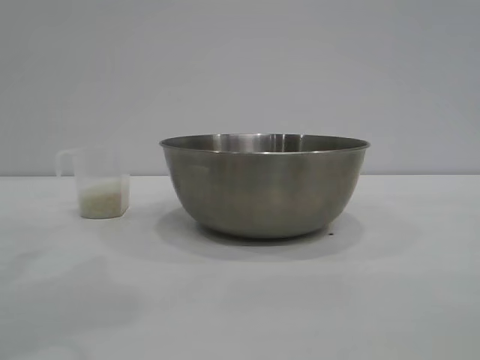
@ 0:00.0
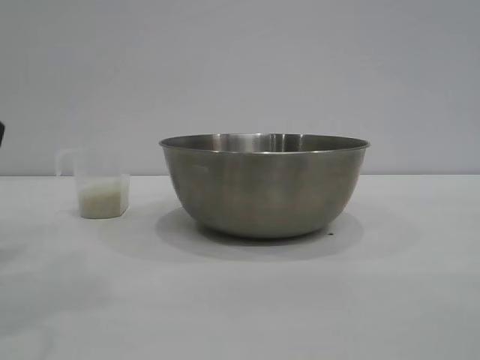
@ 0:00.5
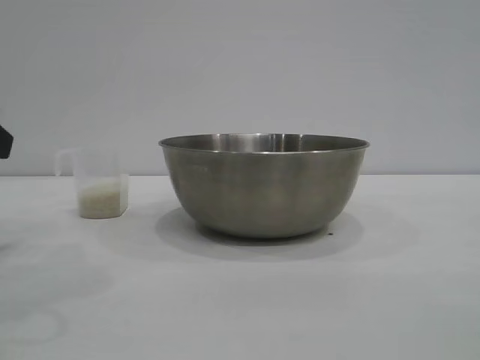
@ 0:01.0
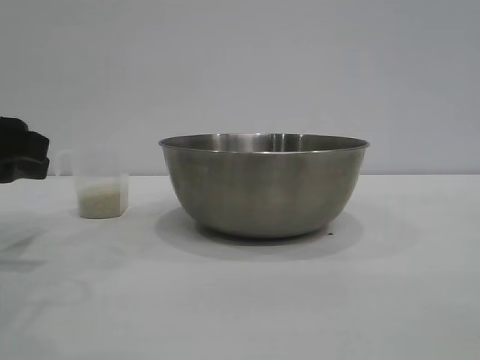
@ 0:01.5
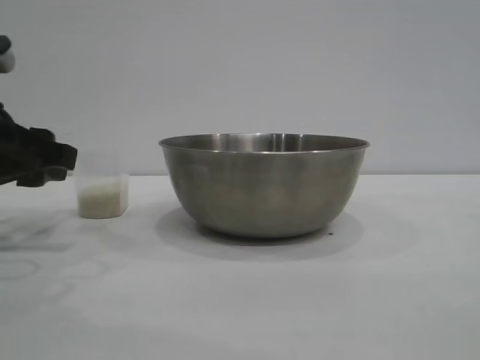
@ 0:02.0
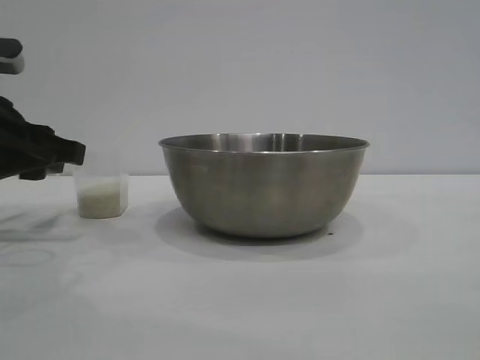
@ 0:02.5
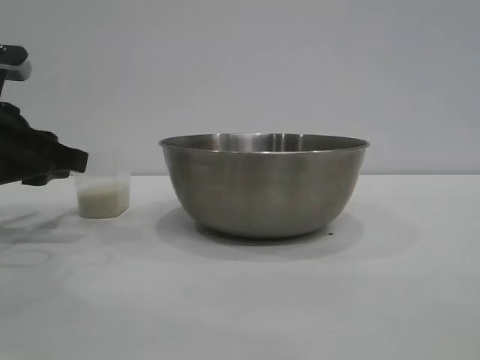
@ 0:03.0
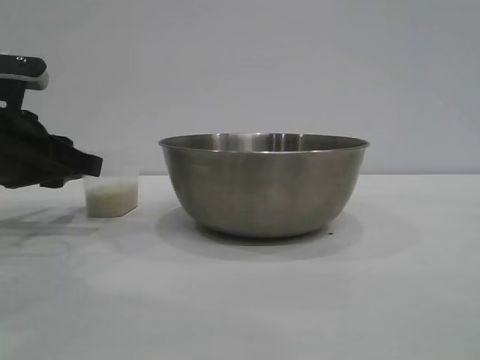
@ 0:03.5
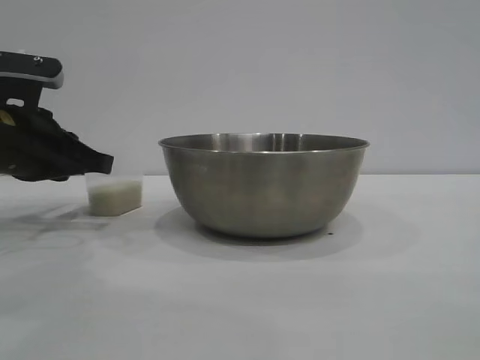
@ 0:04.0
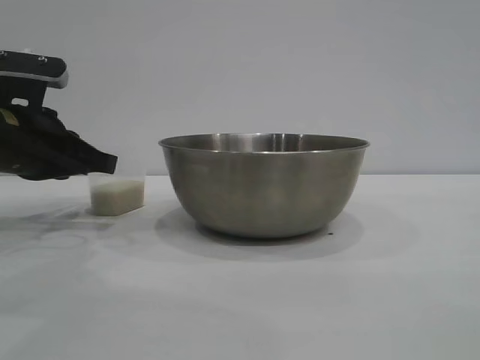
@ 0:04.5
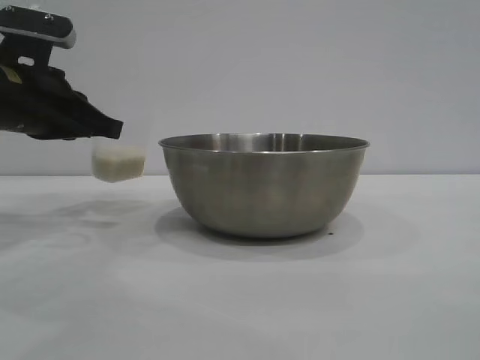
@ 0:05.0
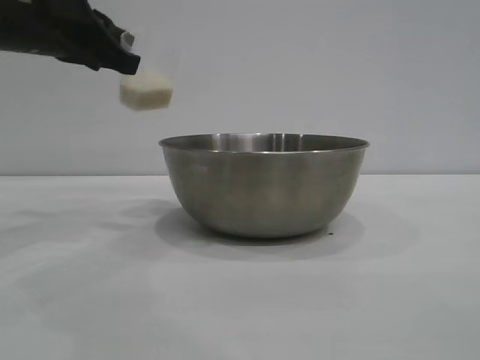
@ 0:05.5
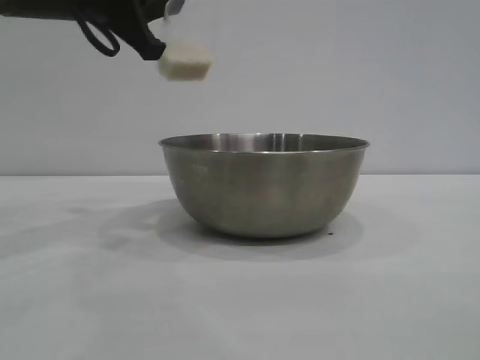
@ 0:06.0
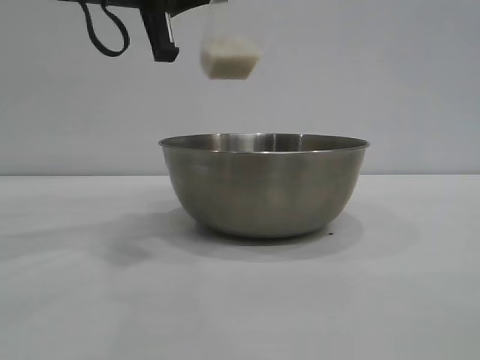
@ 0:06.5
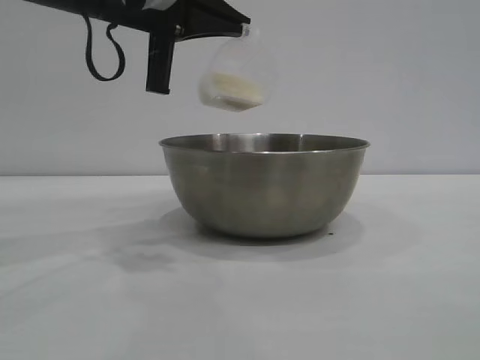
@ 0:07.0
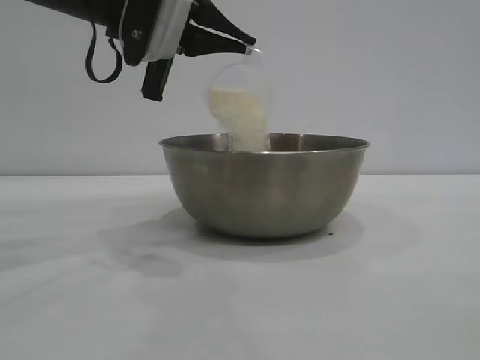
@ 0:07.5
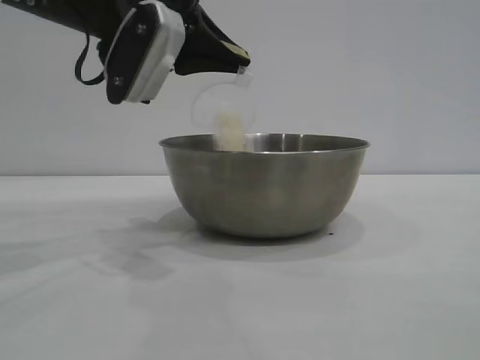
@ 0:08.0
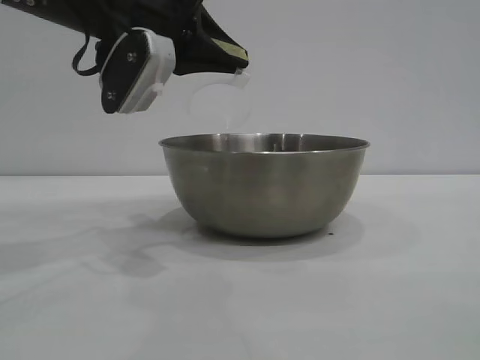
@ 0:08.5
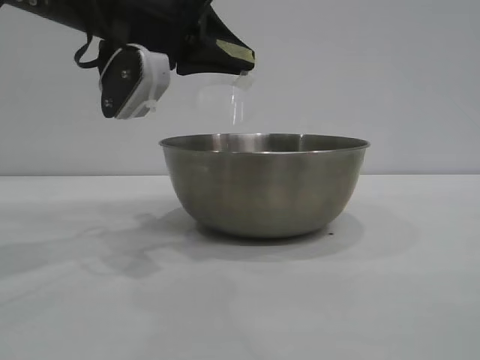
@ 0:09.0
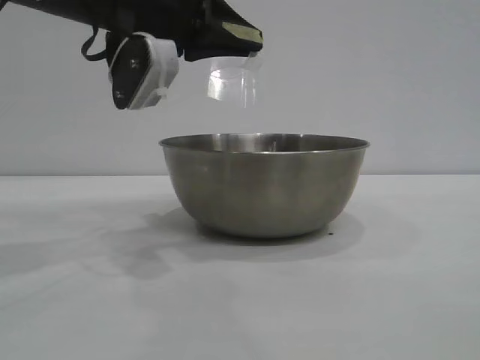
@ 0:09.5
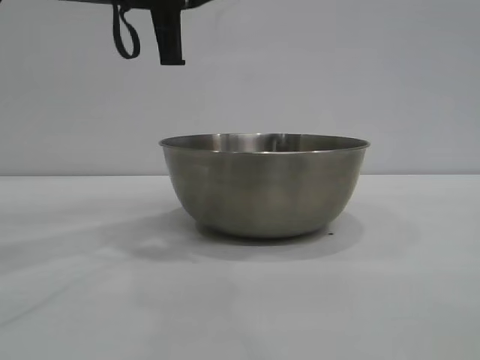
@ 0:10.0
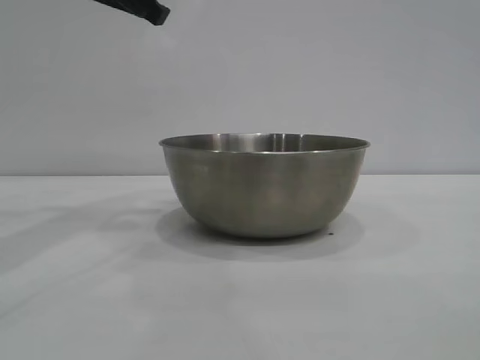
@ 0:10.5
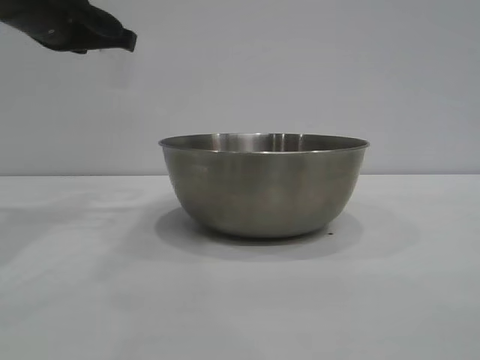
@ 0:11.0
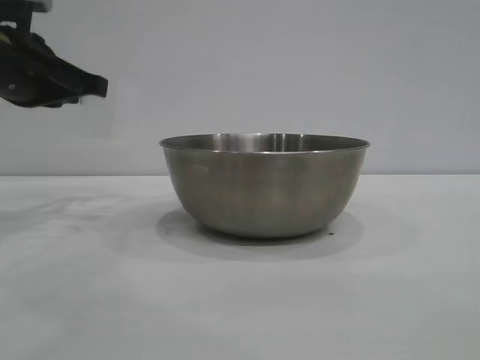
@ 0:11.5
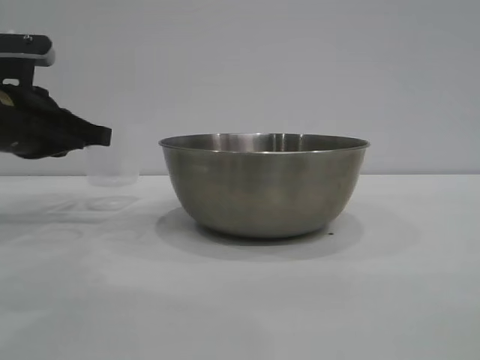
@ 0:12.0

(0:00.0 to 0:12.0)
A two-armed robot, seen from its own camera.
Task of the whole recording: the right gripper grasp the rice container and place it in the center of the table, the left gripper grasp the rice scoop and pour the rice into the rice container.
Step, 0:00.0 - 0:04.5: Pick up the cup with rice in it with the left gripper.
Step, 0:05.0 - 0:10.0: Pour the rice from the cup into the bowl with the left gripper.
